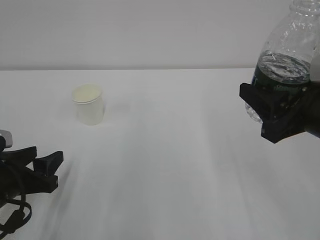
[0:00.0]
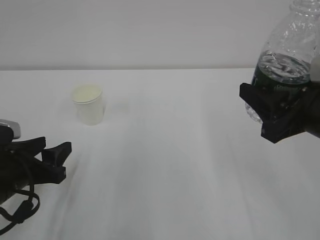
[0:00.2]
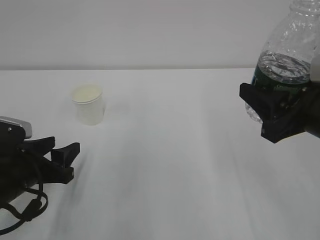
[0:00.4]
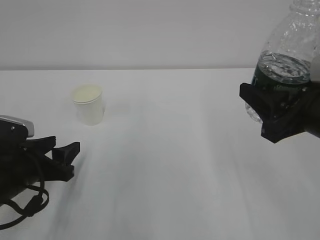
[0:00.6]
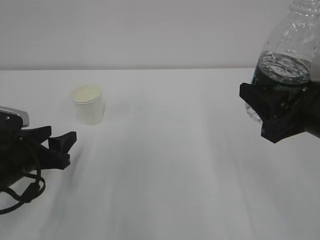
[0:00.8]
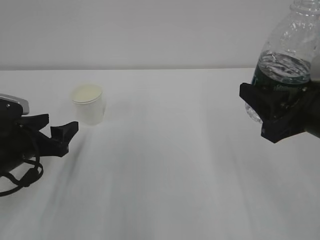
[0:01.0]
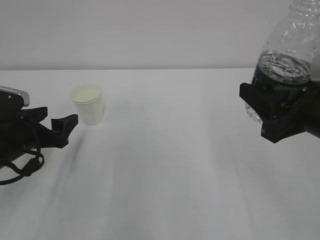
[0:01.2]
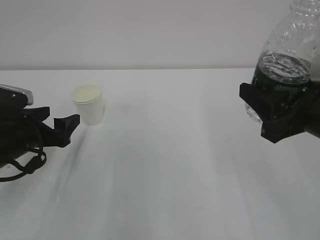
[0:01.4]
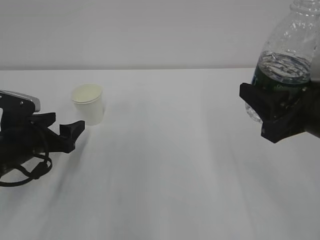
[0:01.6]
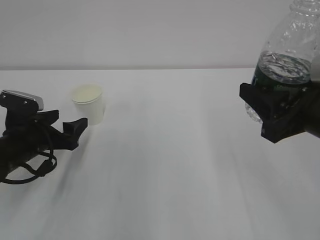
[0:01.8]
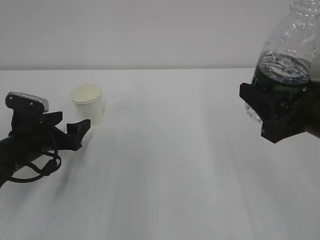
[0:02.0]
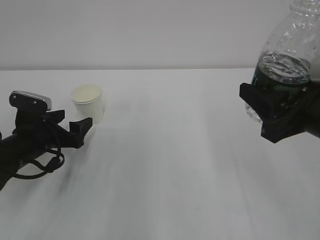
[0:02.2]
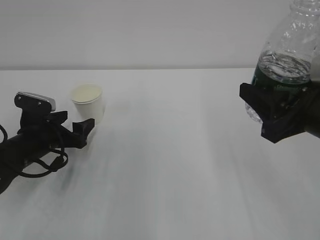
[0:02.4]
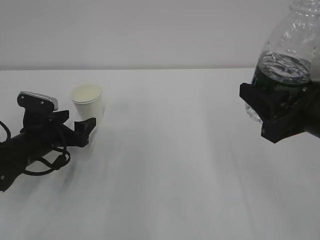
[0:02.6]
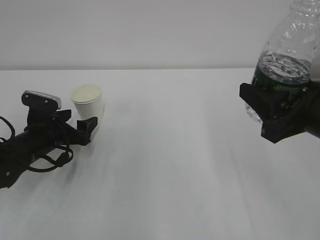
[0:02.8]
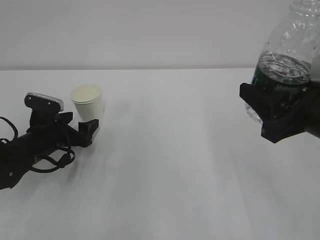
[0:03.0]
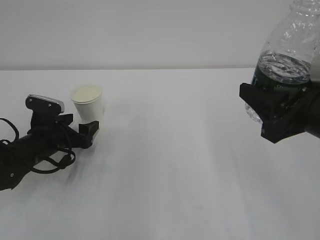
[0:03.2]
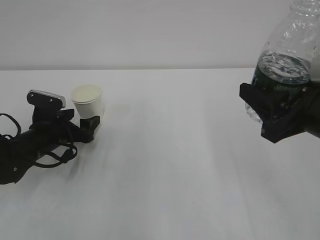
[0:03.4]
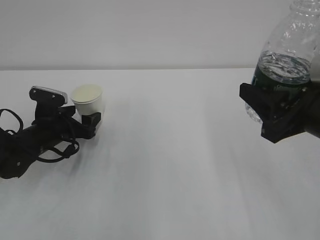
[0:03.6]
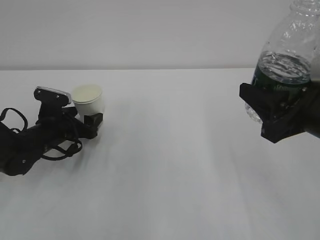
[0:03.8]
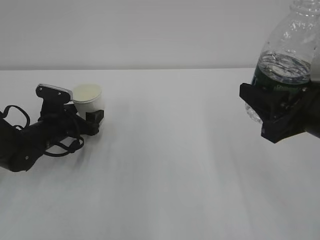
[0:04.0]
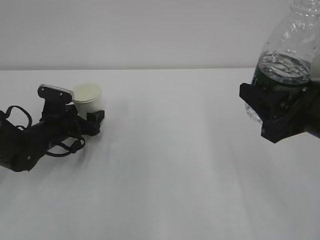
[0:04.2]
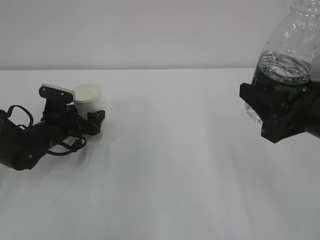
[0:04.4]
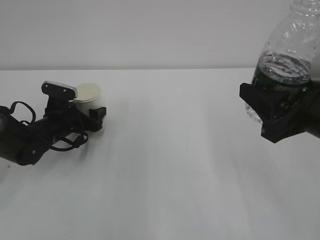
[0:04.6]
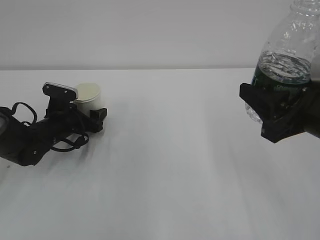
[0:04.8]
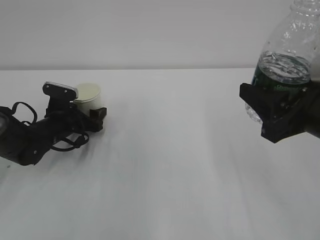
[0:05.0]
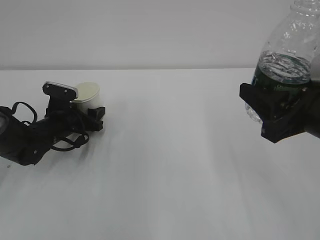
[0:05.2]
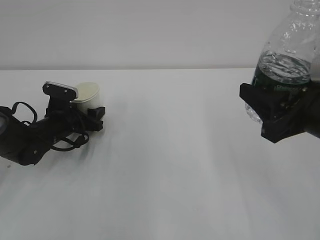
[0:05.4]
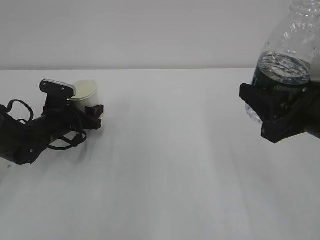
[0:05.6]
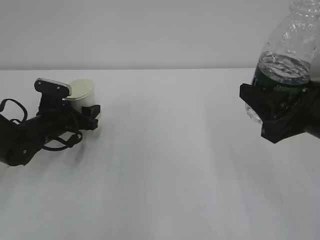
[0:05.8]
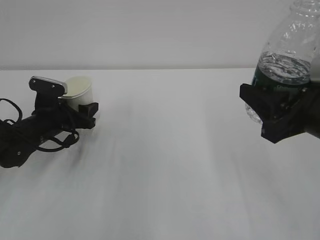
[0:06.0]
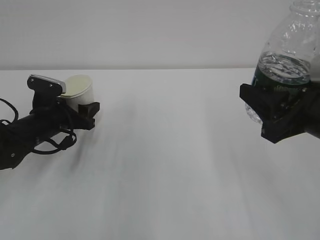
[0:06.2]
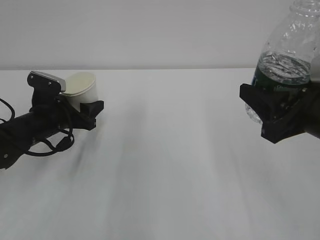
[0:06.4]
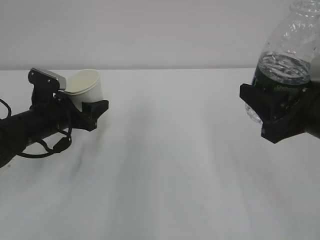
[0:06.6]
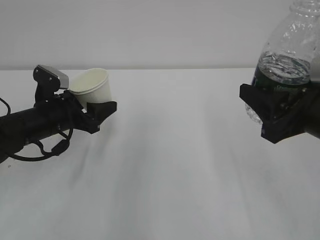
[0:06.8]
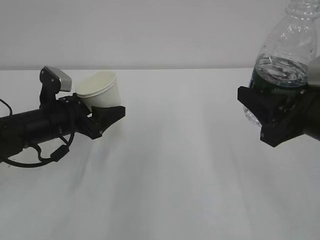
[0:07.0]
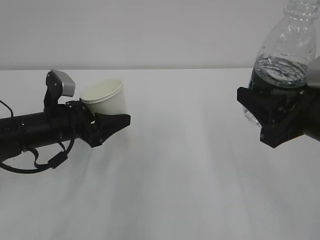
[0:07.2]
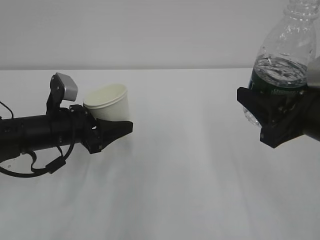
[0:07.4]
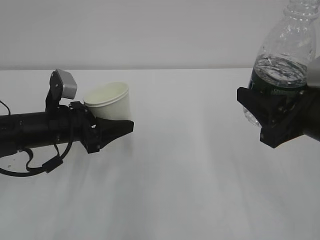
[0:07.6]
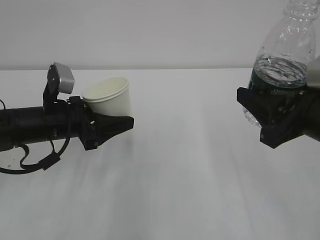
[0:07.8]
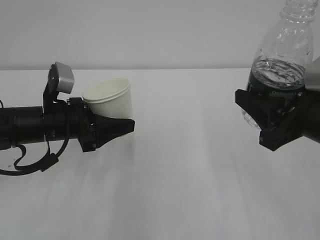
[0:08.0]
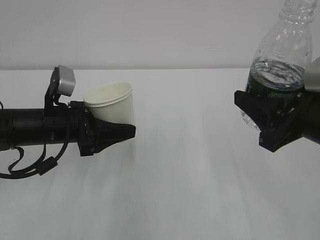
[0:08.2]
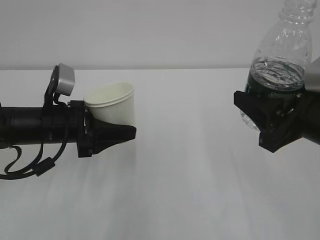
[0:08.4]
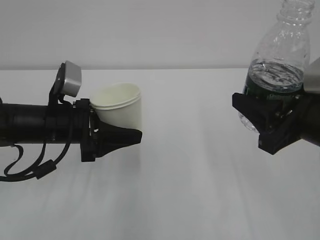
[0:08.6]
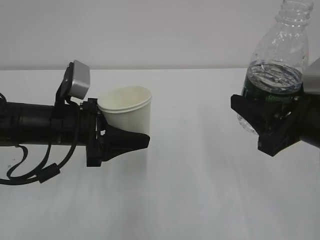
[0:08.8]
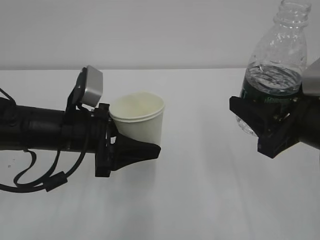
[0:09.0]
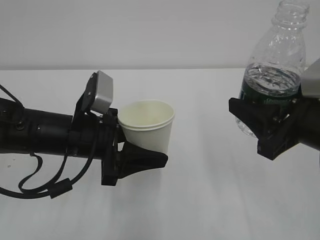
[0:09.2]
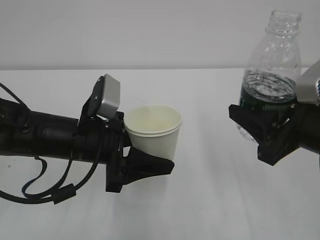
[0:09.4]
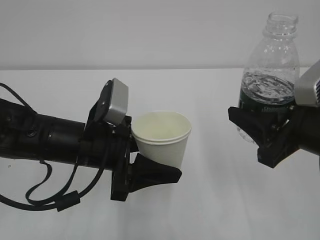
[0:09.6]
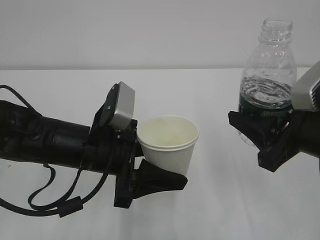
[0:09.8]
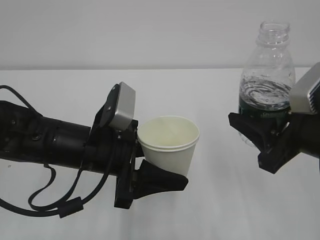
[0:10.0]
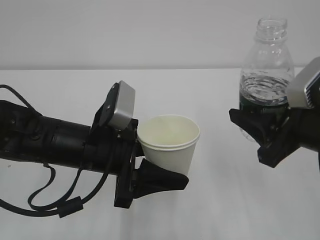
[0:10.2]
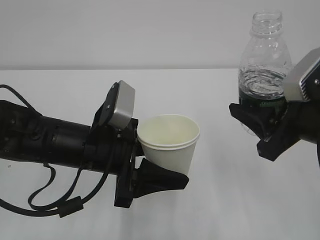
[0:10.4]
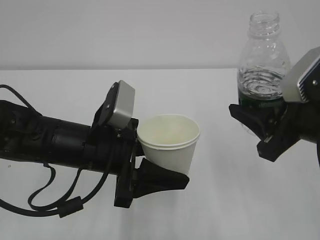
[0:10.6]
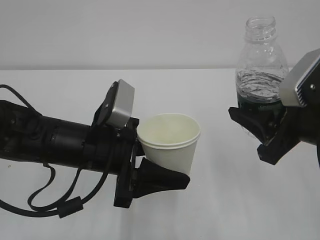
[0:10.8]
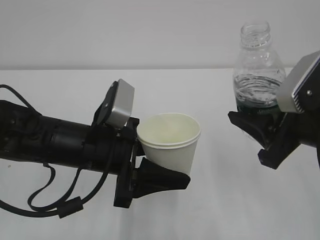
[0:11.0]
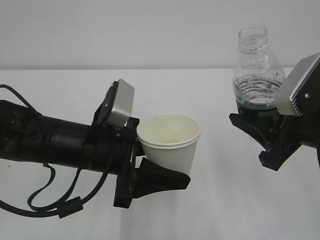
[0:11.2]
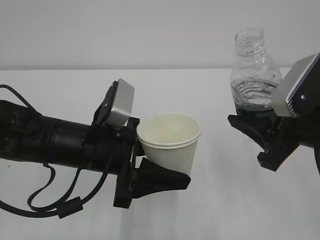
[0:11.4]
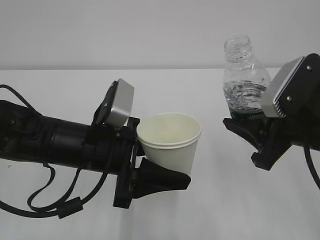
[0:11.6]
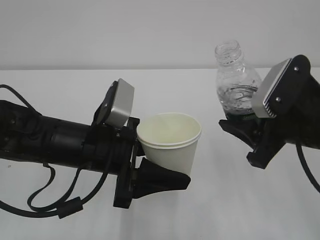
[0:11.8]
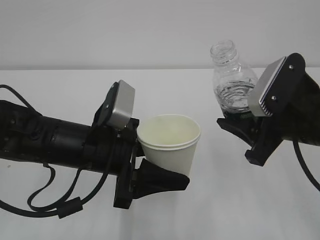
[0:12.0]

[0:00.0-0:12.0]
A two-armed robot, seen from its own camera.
0:00.0 to 0:01.6: The left gripper is displaced forward by roughly 10 cm, and opens.
0:01.6 to 0:03.0: The left gripper shifts about 5 cm forward.
0:03.0 to 0:04.4: The grippers move only a little.
0:04.4 to 0:06.0: The left gripper closes up.
0:06.0 to 0:07.6: The left gripper moves backward and upward, approximately 10 cm.
0:07.6 to 0:09.0: The left gripper moves to the right, roughly 5 cm.
0:09.0 to 0:10.4: The left gripper ends up about 5 cm from where it was.
0:10.4 to 0:12.0: The grippers make only small movements.

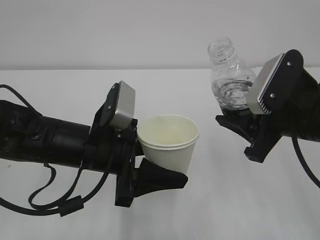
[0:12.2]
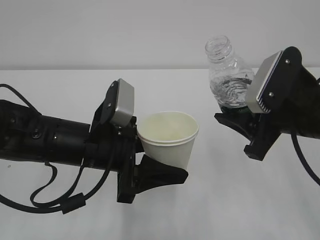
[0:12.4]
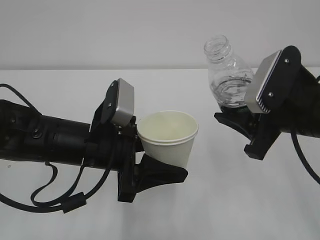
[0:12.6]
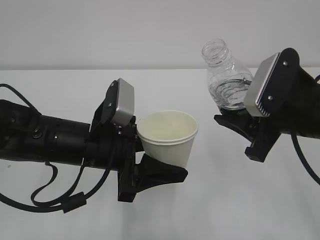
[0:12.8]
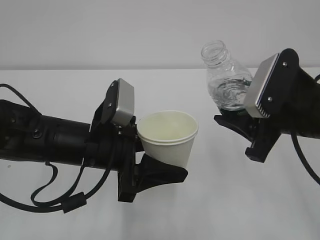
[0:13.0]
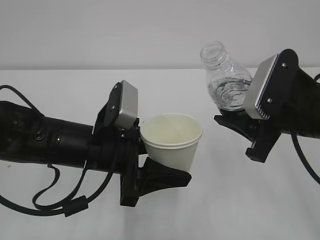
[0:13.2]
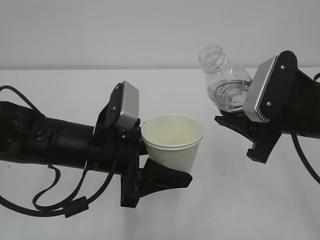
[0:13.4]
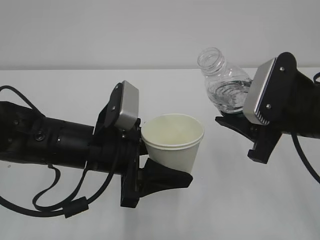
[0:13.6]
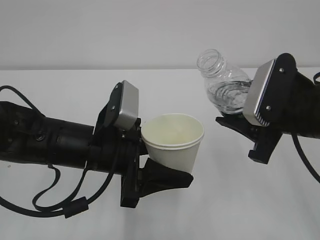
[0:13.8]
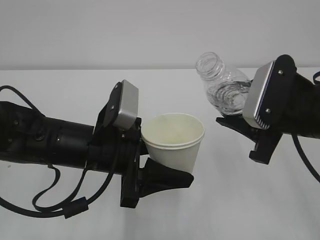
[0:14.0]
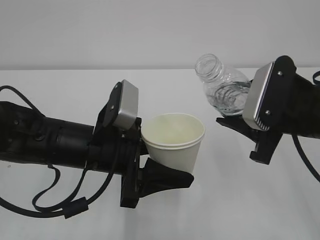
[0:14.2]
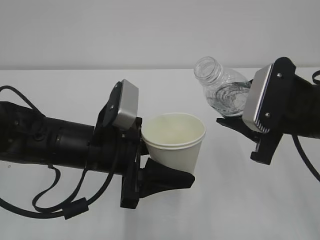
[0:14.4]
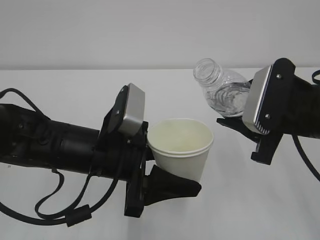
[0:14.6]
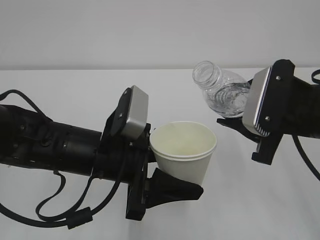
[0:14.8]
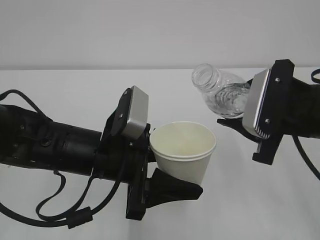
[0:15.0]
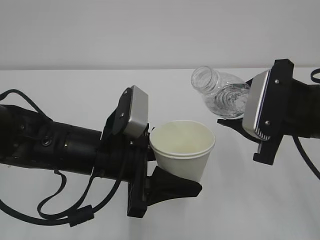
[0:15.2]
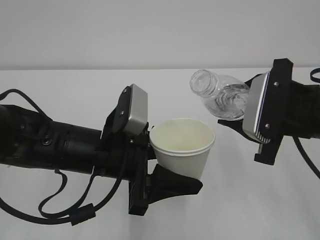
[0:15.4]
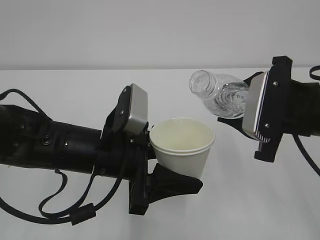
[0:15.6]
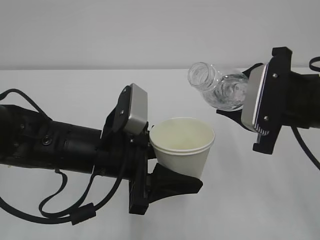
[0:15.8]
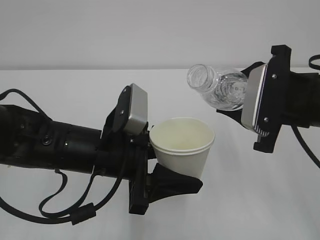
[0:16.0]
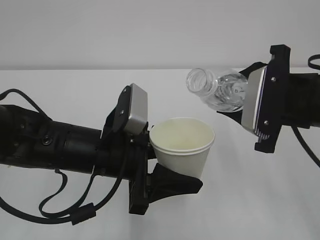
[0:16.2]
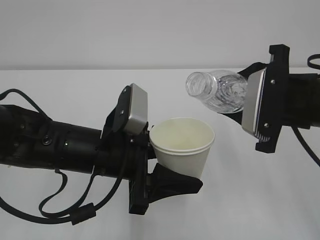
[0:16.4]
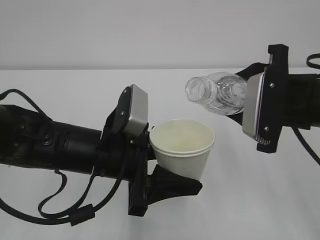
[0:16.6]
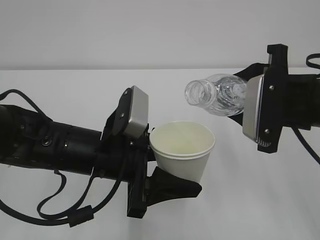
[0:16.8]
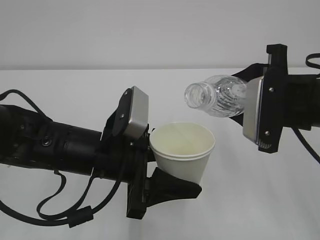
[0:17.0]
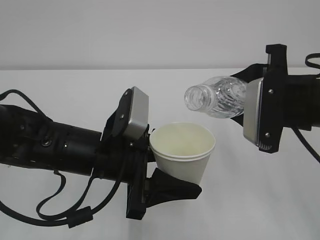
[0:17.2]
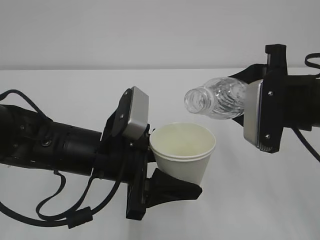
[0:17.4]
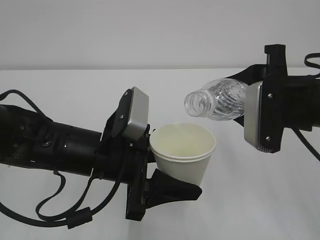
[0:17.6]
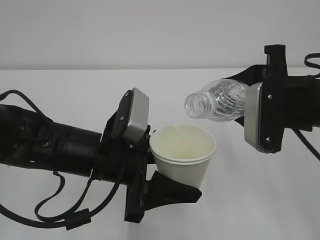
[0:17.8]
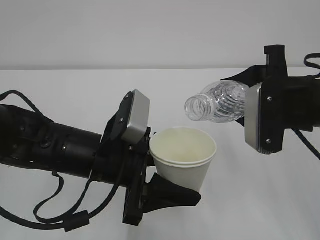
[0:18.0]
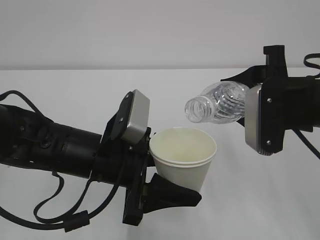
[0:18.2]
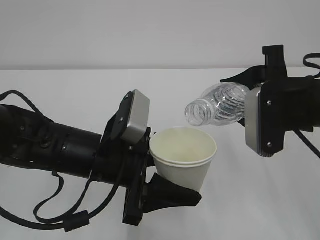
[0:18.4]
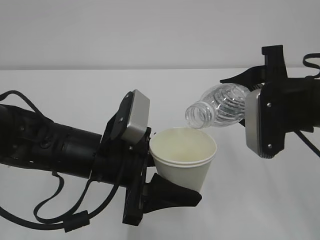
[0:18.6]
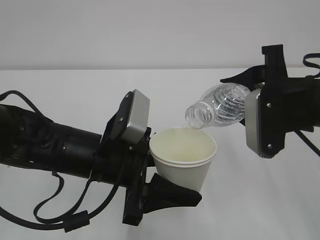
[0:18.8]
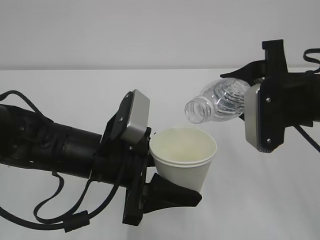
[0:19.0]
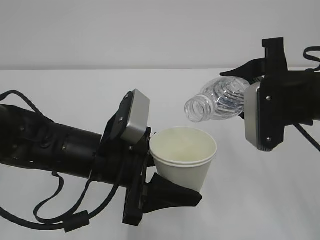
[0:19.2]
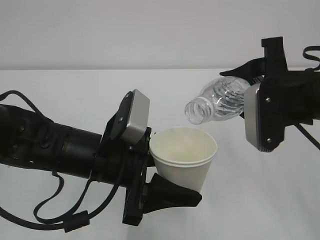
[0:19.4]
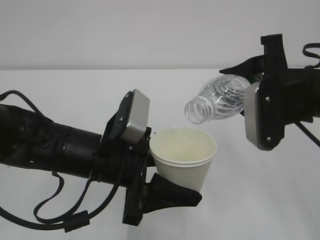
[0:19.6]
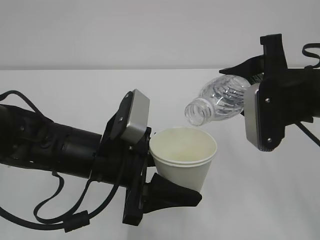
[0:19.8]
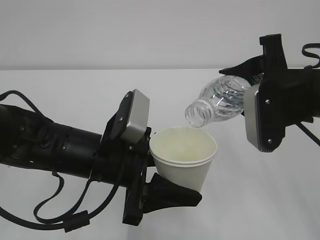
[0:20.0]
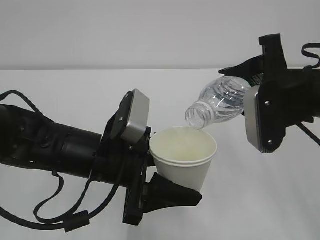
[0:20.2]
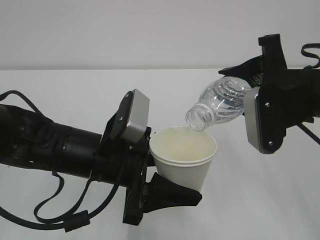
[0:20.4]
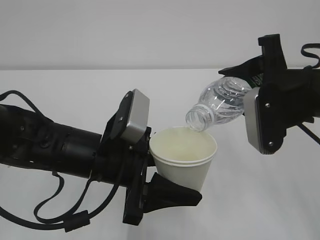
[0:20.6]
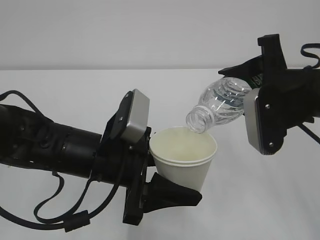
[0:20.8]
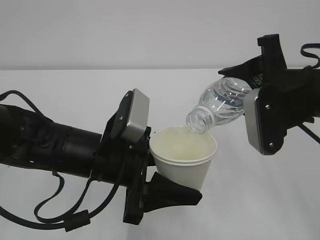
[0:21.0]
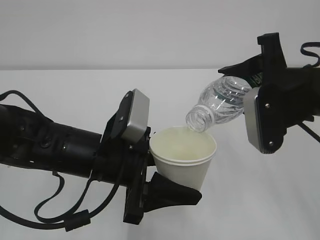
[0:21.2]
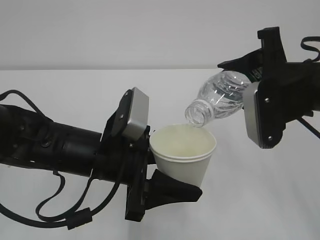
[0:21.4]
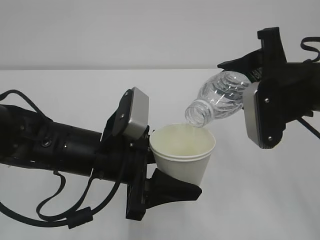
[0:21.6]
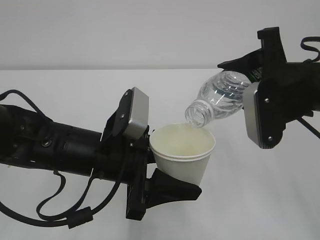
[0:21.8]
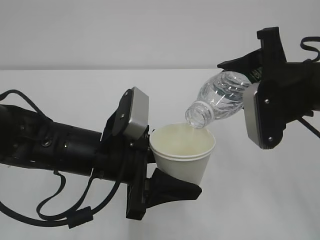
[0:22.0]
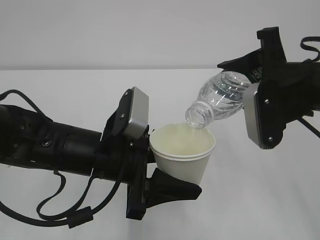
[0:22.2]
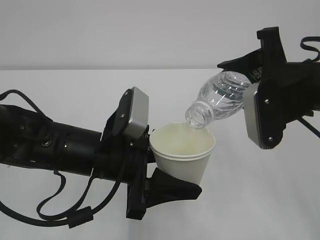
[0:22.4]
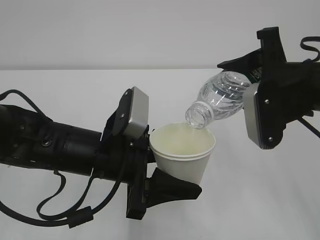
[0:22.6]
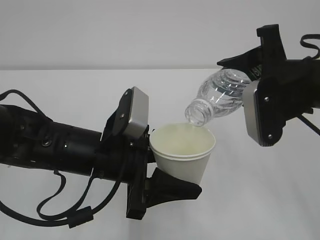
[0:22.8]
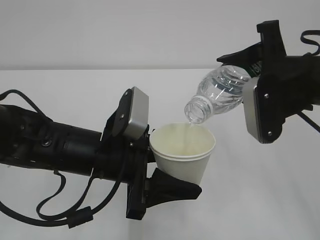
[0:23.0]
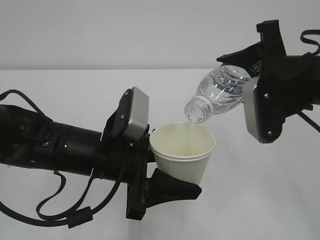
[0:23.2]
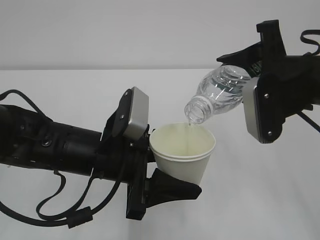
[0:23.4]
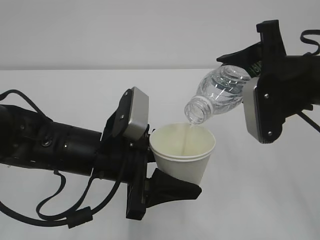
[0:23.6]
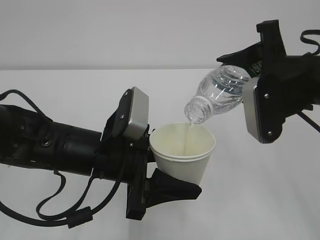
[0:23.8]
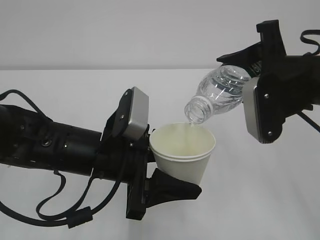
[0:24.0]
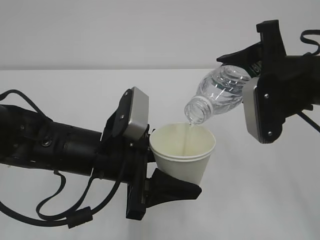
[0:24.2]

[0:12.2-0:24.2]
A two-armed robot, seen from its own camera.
0:12.2 to 0:13.8: There are only small adjustments of the grippers.
0:13.8 to 0:15.2: The grippers make only small movements.
0:15.2 to 0:16.6: The grippers make only small movements.
0:16.6 to 0:19.8: The grippers stay close to where they were, moving slightly.
0:19.8 to 0:21.2: The grippers make only small movements.
0:21.2 to 0:24.2: Neither gripper changes place.
